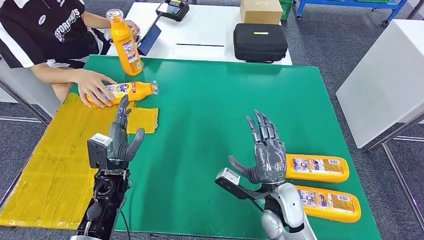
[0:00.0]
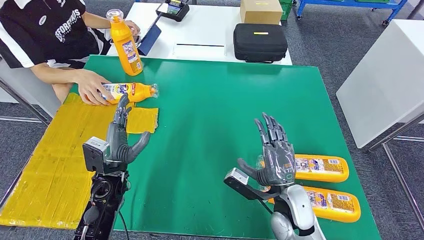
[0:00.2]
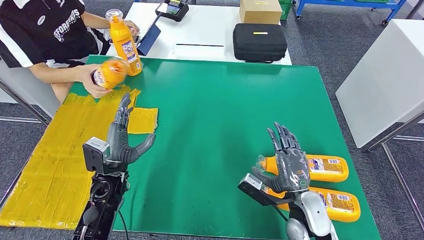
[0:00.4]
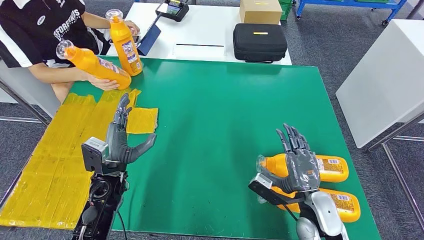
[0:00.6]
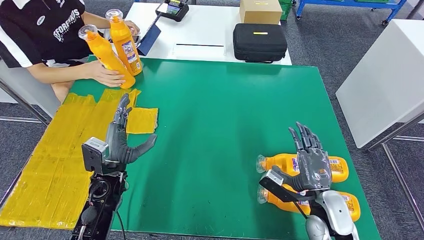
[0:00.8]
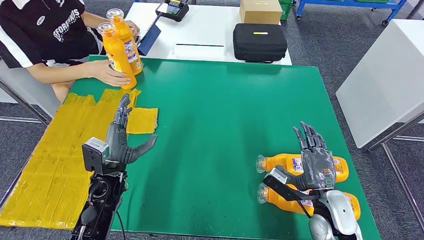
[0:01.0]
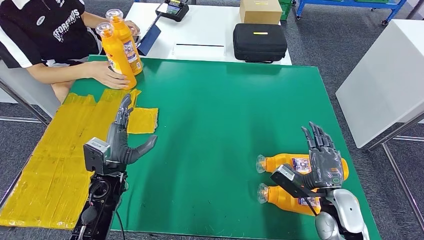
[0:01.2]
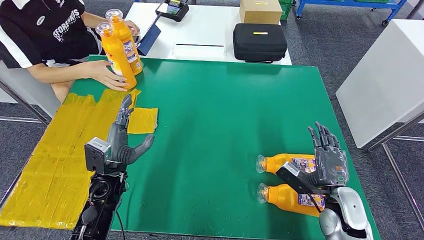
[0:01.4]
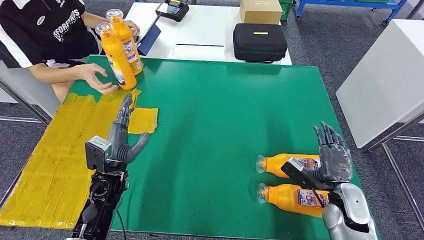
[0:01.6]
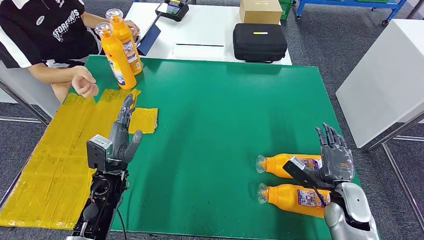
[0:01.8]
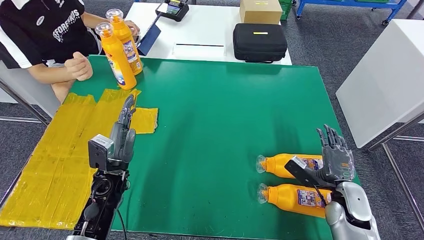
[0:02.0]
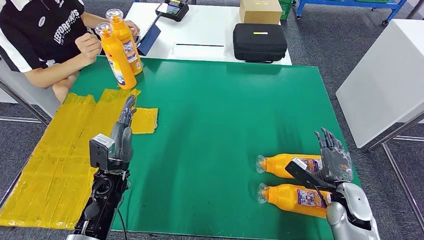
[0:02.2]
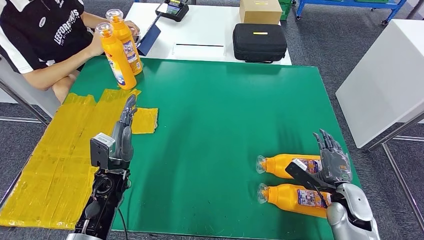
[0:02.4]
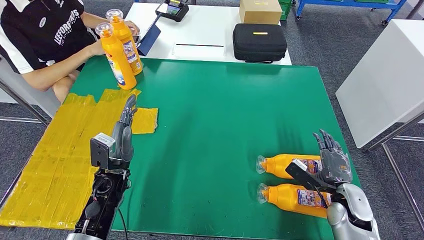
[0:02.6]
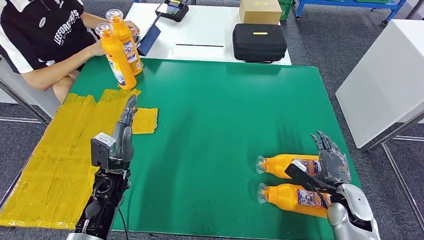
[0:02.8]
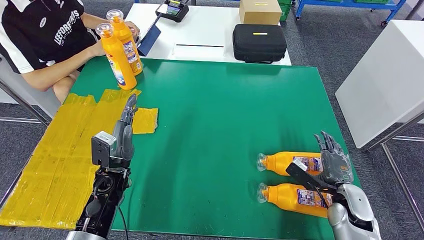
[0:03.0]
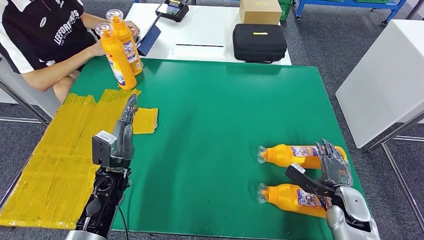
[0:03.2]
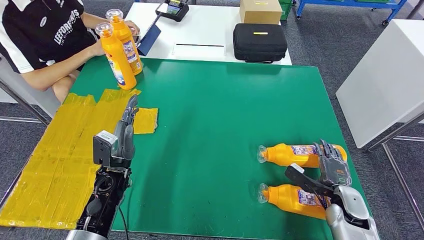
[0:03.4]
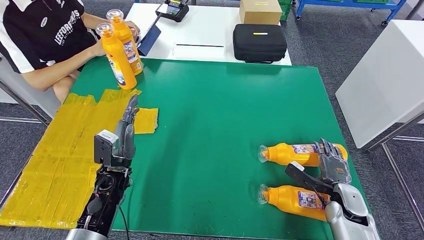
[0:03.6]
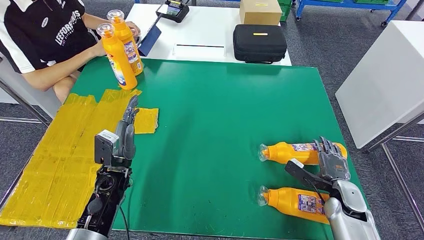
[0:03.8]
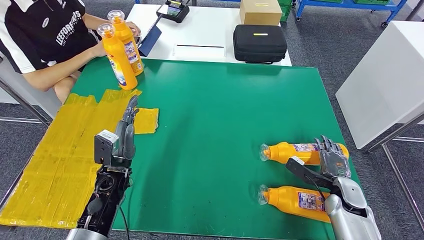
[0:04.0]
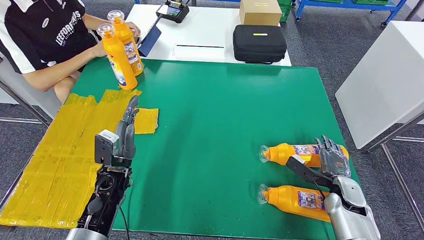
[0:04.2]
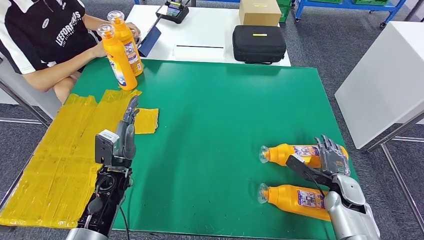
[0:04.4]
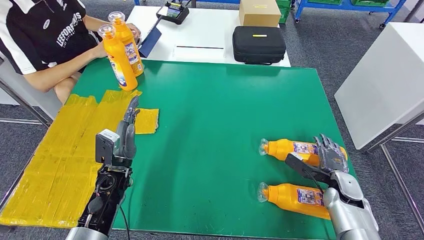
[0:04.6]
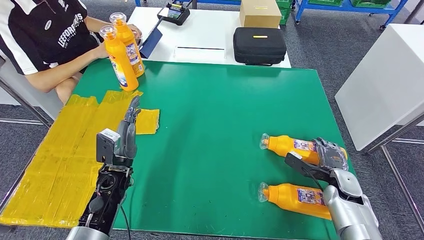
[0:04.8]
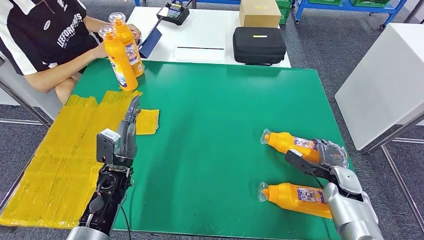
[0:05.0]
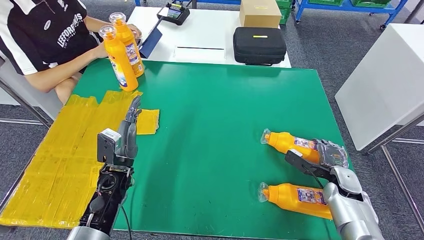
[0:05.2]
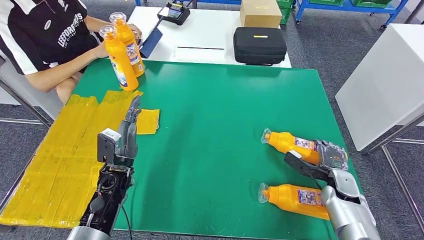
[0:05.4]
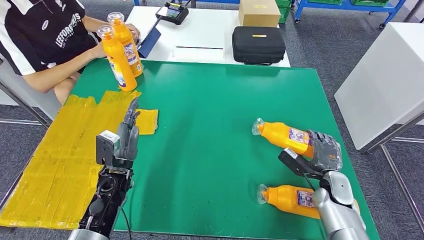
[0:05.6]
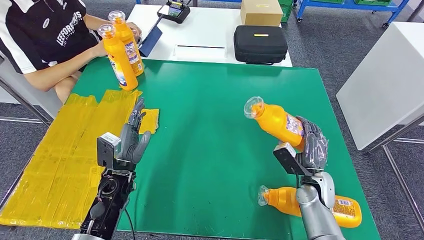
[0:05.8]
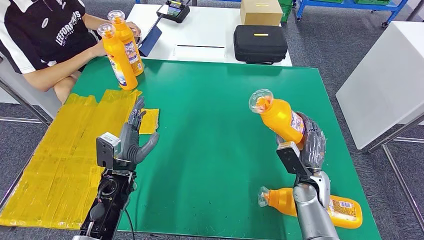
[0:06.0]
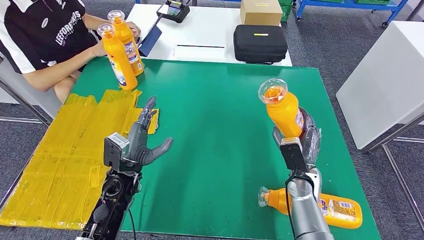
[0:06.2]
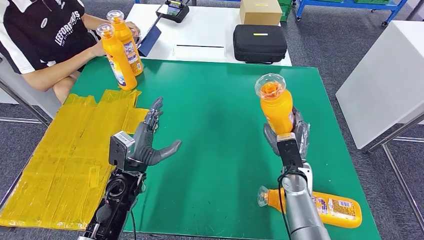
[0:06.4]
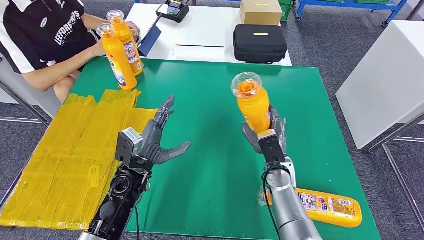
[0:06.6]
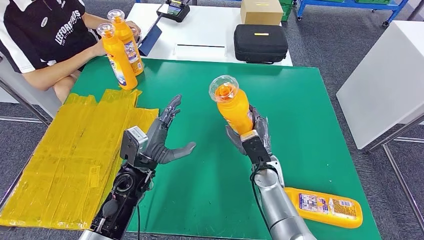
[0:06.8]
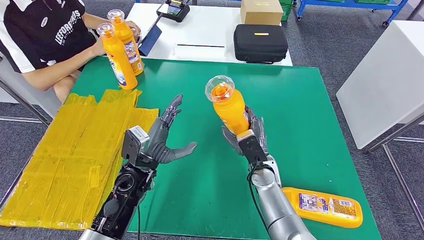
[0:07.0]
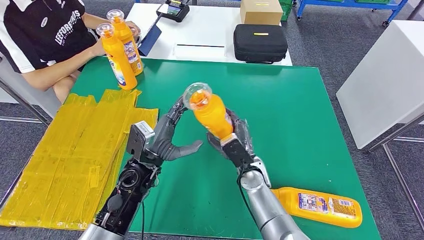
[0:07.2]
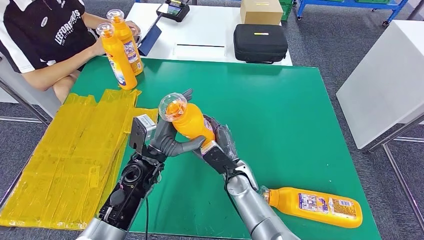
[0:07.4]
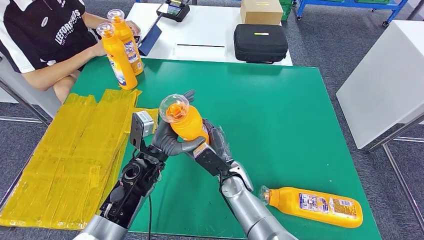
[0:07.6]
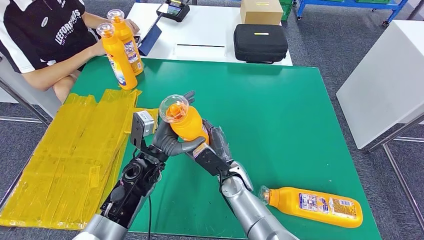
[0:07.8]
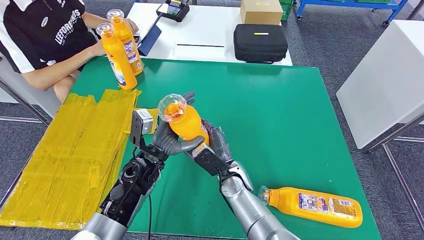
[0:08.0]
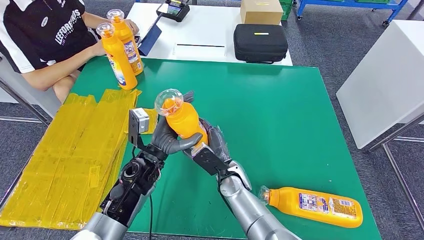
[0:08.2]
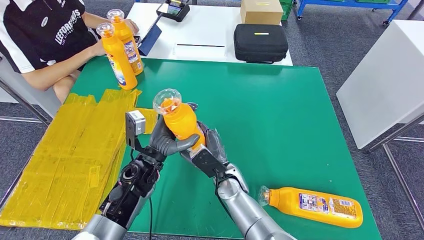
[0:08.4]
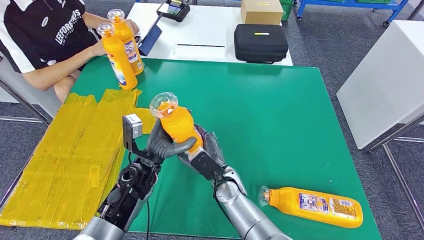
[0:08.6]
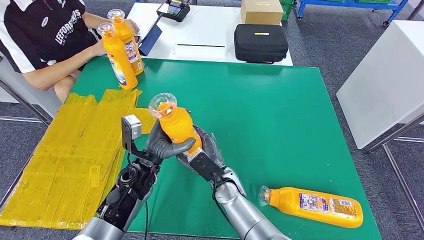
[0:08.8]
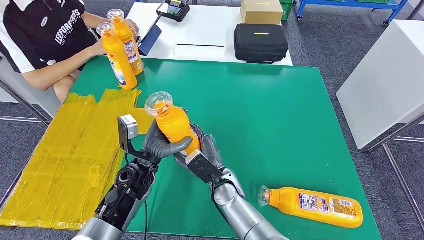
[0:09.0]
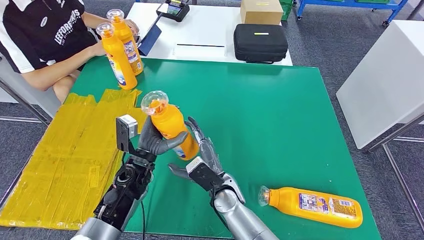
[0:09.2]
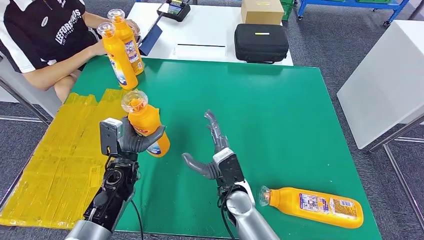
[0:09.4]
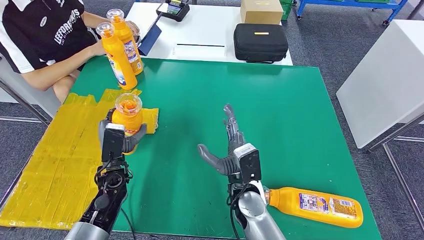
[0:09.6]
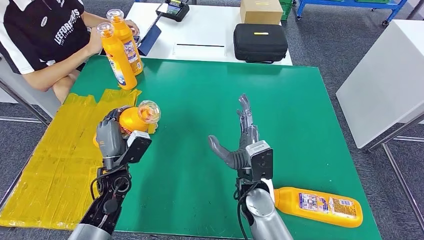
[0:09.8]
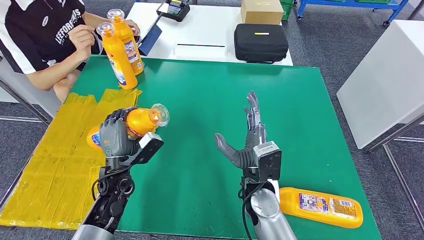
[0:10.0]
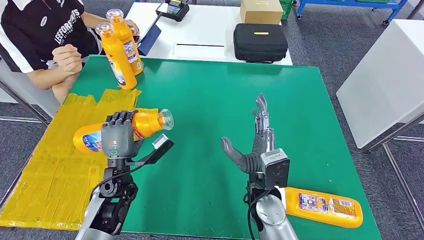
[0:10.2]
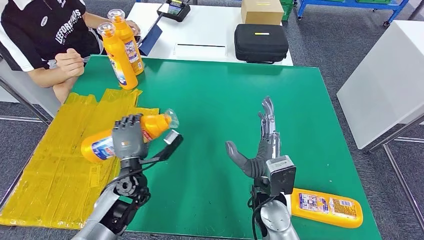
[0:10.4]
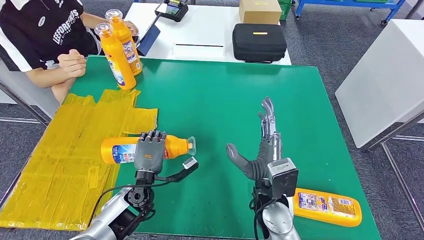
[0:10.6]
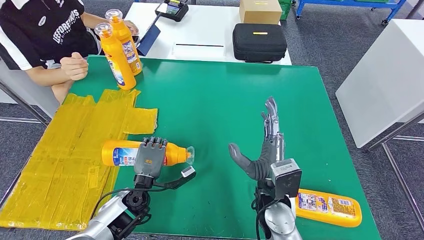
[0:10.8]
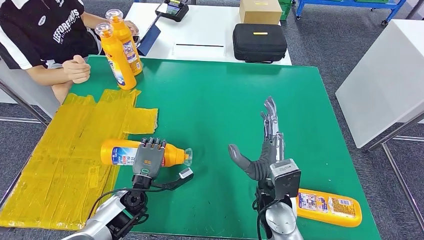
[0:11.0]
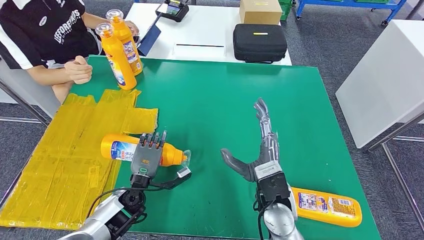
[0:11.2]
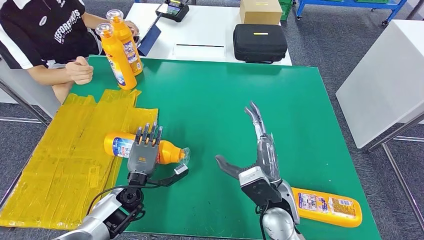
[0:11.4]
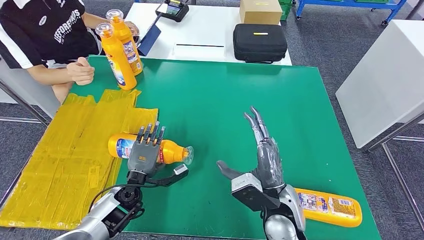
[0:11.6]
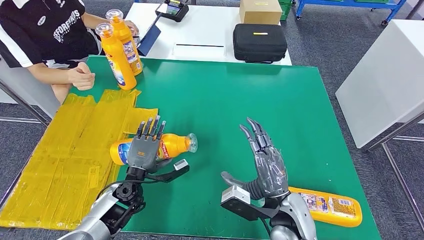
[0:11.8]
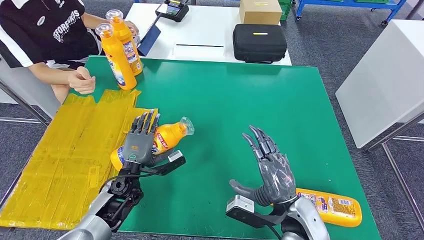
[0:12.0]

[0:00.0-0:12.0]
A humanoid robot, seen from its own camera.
Step, 0:04.0 to 0:06.6: Pick up the fast-moving consumer goods bottle from the table.
0:00.0 to 0:01.6: The right hand shifts some 20 cm to the right.
0:01.6 to 0:03.0: The hands move only a little.
0:03.0 to 0:04.4: The hands make only small movements.
0:04.4 to 0:06.0: The right hand travels to the left by some 10 cm.
0:06.0 to 0:07.6: The left hand is displaced to the right by about 5 cm. Meanwhile the right hand is displaced to the left by some 20 cm.
0:07.6 to 0:09.0: The hands make only small movements.
0:09.0 to 0:10.4: The right hand shifts roughly 10 cm to the right and upward.
0:10.4 to 0:12.0: The right hand goes approximately 5 cm to the right.

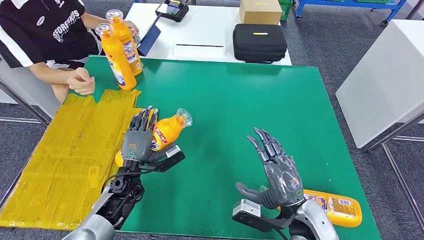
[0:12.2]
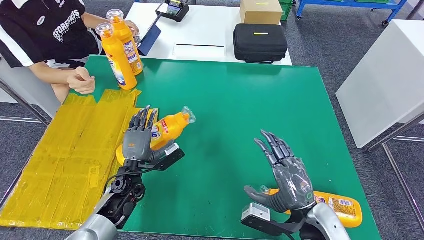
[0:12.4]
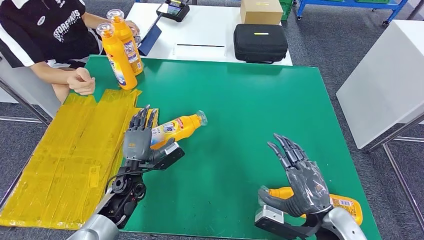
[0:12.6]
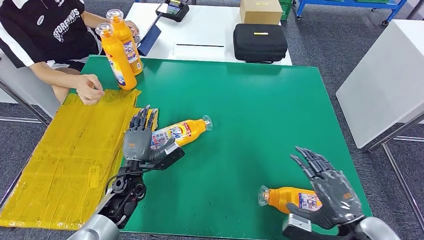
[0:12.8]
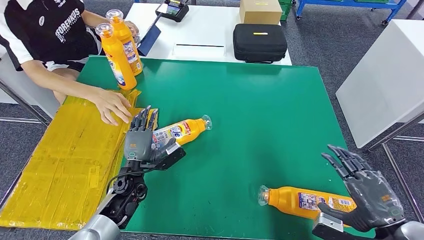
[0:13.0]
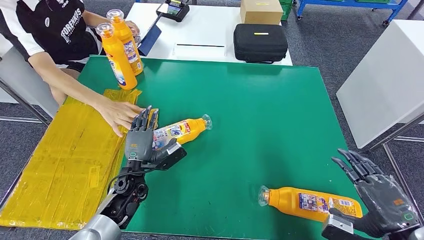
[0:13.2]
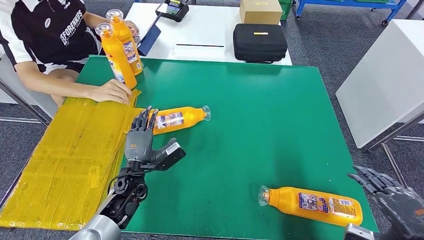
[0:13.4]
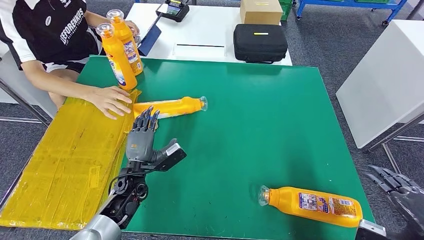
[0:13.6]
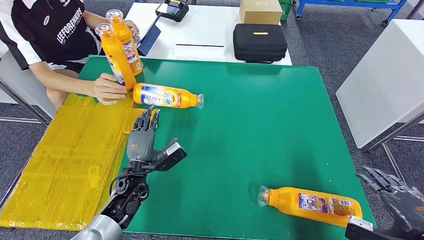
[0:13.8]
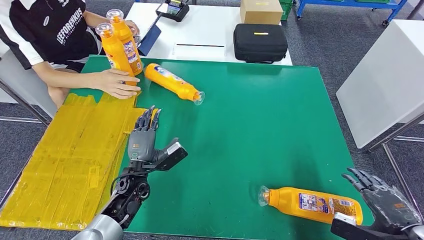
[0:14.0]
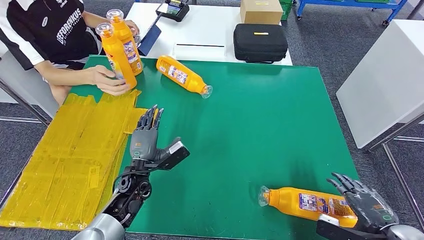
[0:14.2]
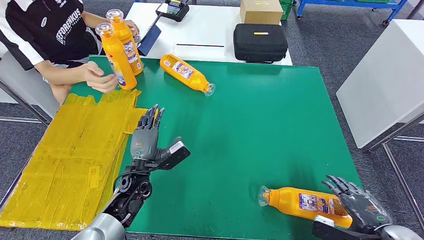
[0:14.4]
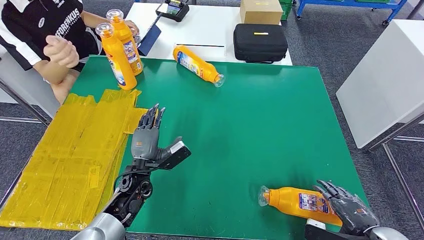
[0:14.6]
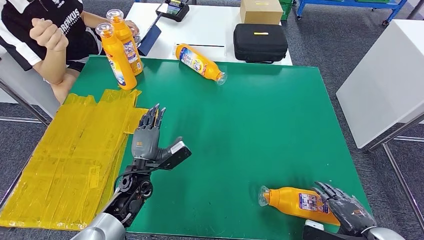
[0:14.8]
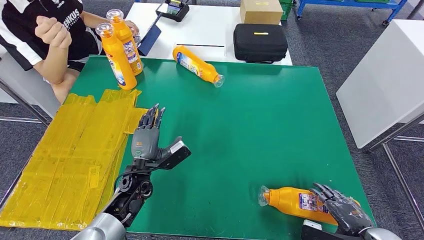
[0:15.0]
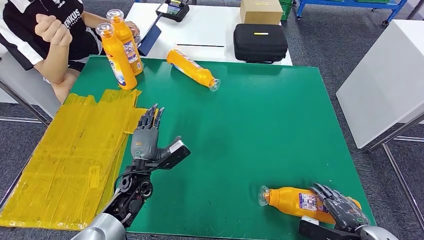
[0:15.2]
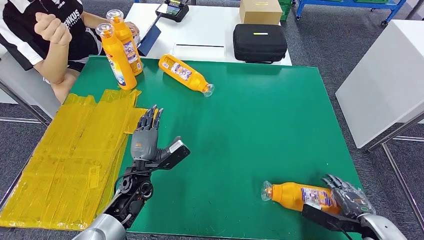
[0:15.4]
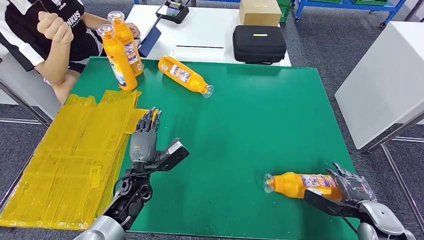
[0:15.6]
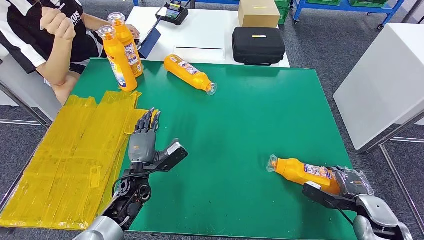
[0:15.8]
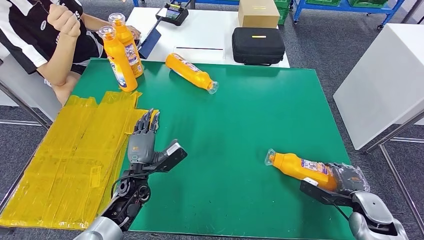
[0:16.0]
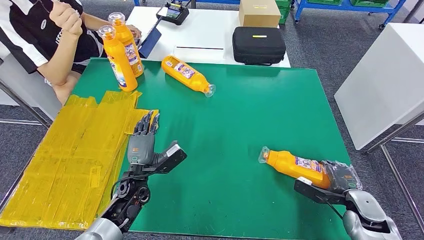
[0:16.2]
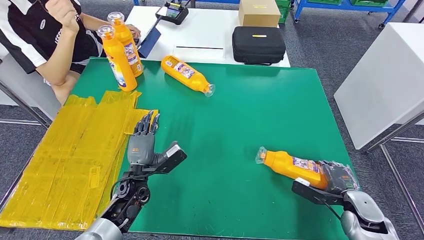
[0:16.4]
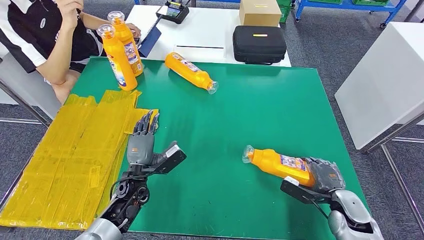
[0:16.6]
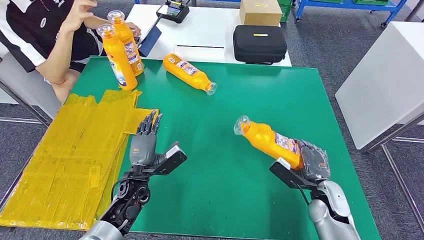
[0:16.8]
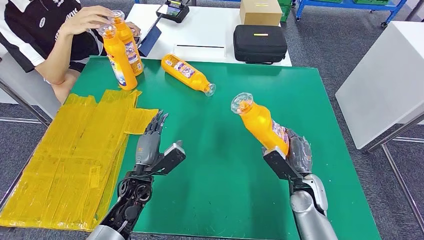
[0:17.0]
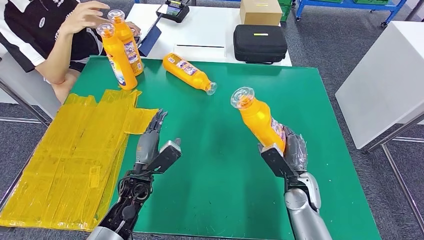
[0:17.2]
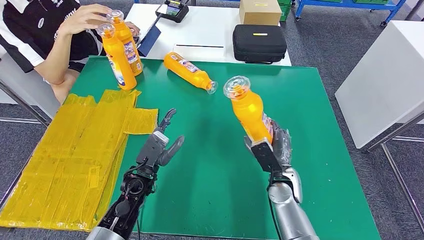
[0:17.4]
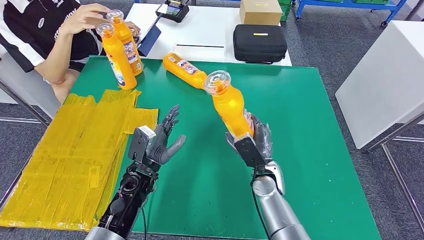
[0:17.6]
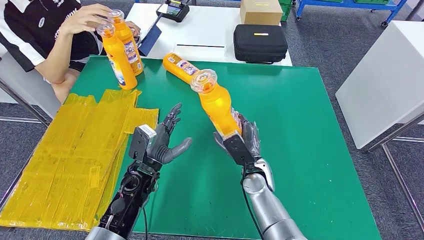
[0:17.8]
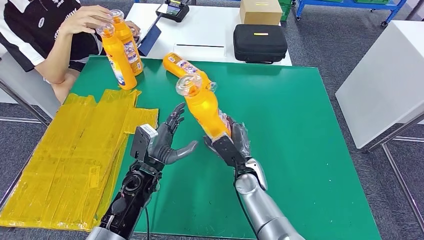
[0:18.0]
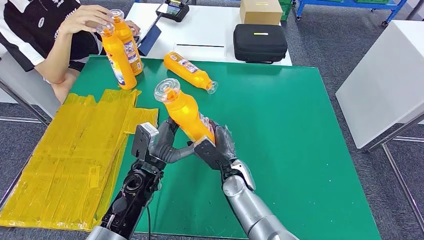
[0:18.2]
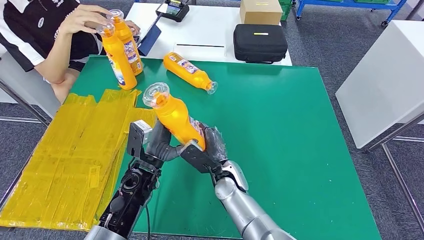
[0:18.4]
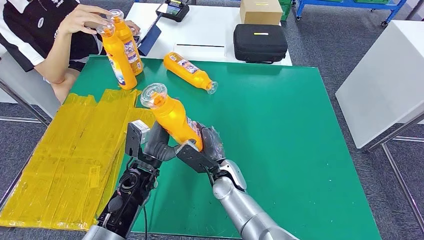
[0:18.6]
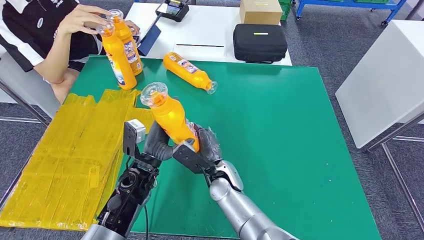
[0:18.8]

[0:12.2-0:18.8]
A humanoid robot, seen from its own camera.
Step, 0:15.4 to 0:17.2: Pick up the fast-moving consumer goods bottle from the table.
0:12.2 to 0:13.8: The right hand moves to the right and backward, about 25 cm.
0:13.8 to 0:15.4: The right hand shifts roughly 15 cm downward and forward.
0:15.4 to 0:17.2: The right hand goes about 20 cm to the left and forward.
0:17.2 to 0:18.8: The right hand goes some 25 cm to the left. Meanwhile the left hand ends up about 5 cm from where it was.
